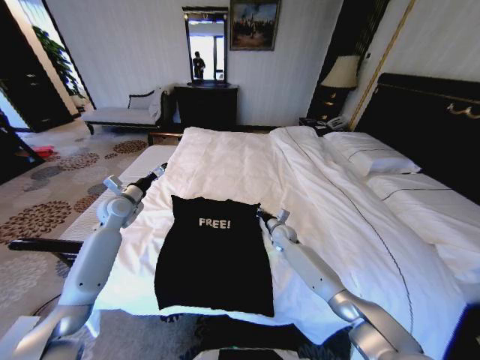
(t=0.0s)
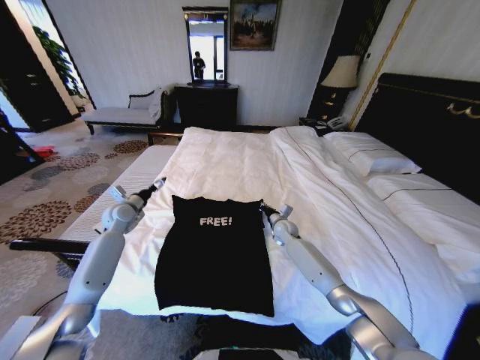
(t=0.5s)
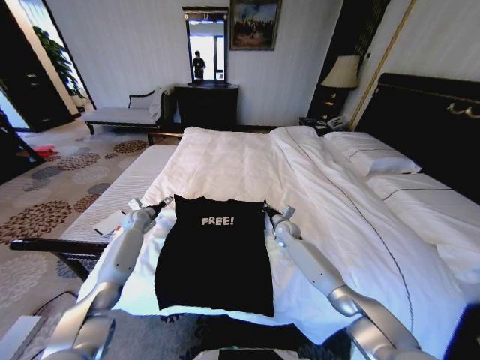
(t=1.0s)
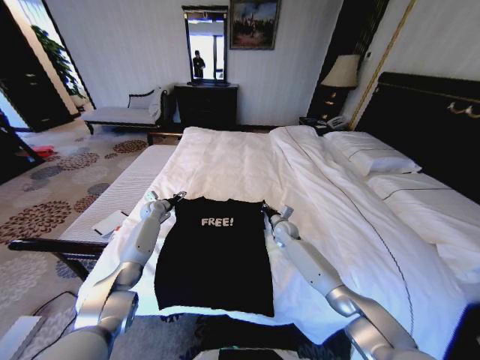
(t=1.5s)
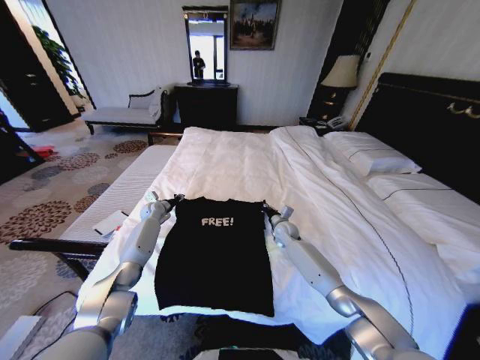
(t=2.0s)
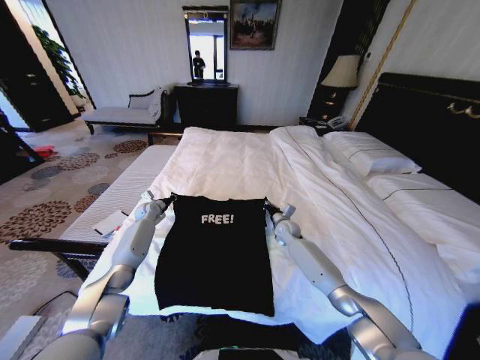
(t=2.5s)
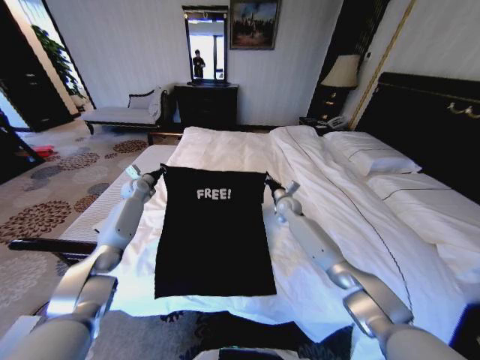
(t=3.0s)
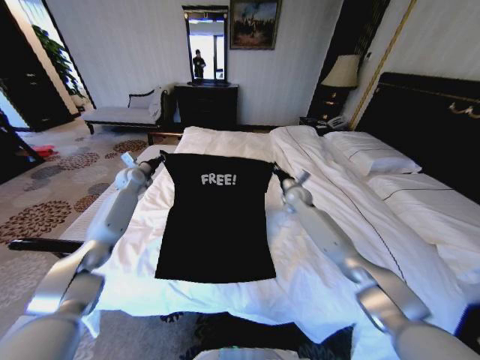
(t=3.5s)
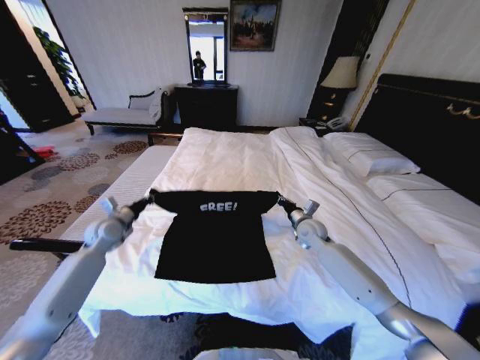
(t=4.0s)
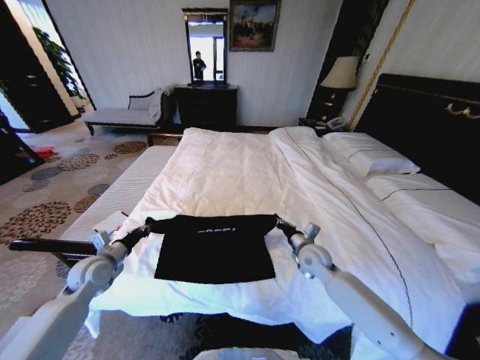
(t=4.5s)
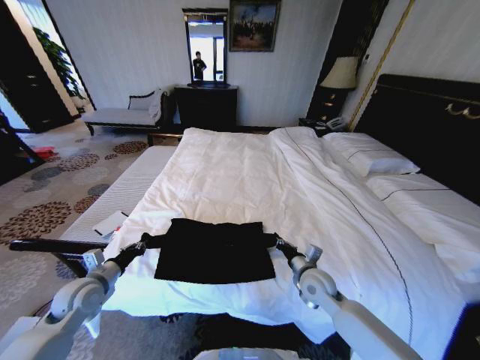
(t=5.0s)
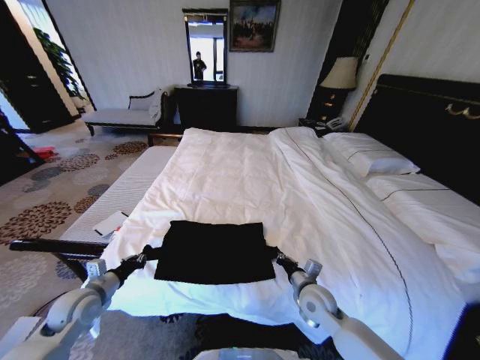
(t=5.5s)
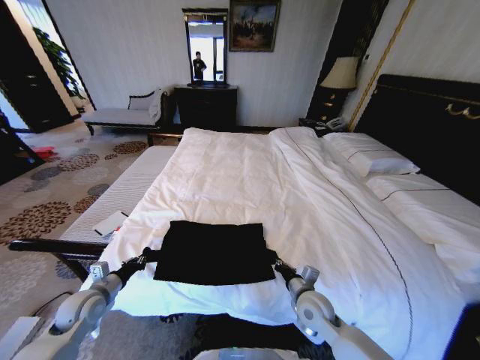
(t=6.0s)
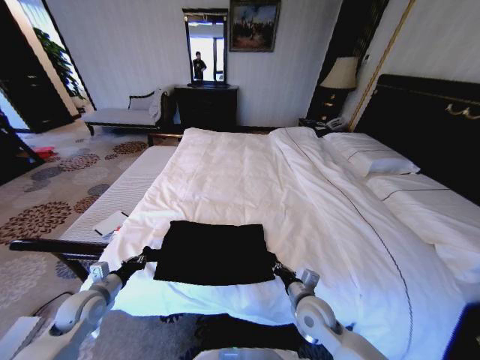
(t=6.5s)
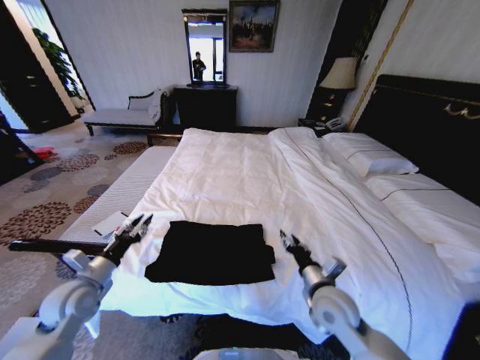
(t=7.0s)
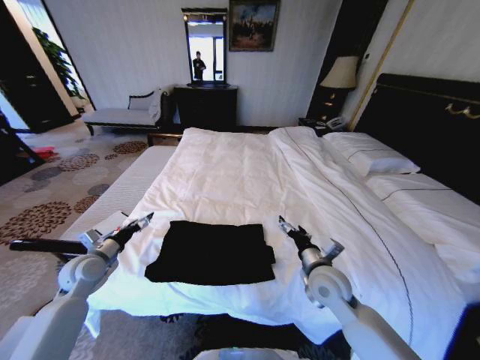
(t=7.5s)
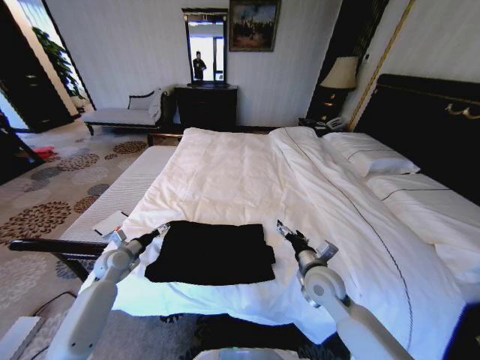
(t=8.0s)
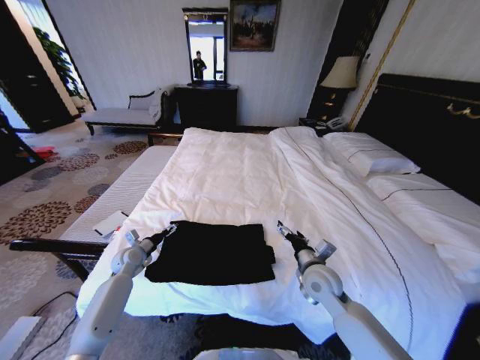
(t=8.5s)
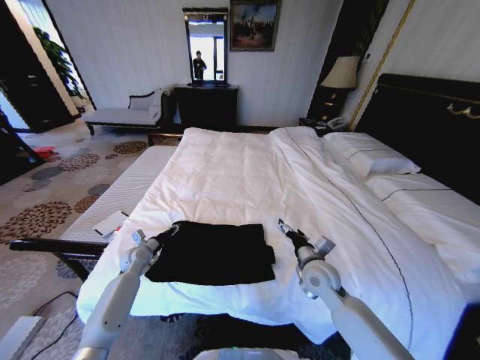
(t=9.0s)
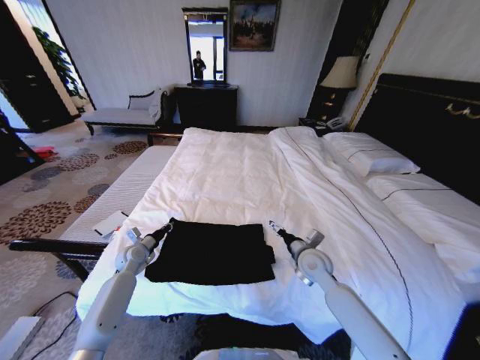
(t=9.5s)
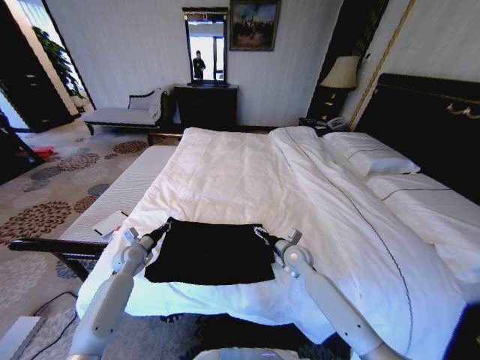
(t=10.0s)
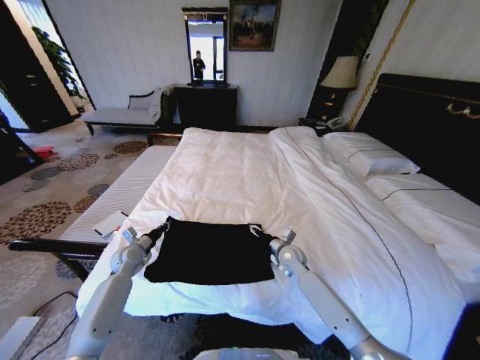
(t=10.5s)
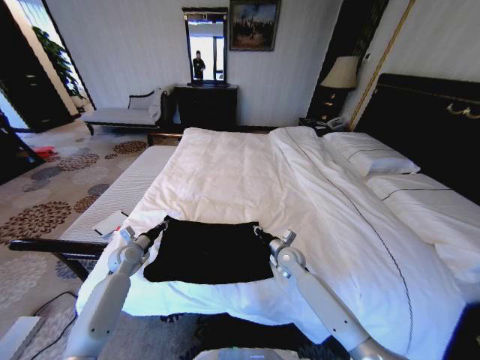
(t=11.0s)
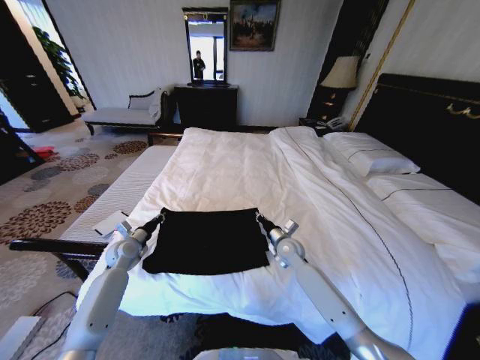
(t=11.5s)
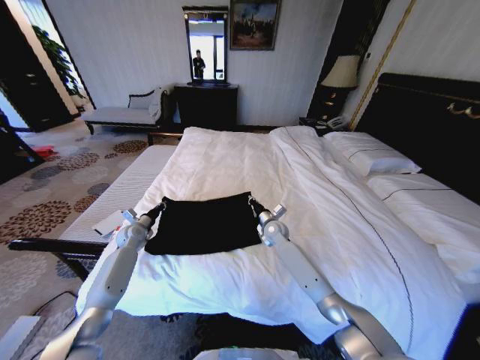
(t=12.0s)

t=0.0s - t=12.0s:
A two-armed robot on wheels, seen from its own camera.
Task of the whole recording: Fold the clothes on the bed.
t=0.0s - t=2.0s: The left gripper moves downward and forward, about 20 cm, and closes.
t=2.0s - t=4.0s: The right gripper moves upward, backward and to the right, approximately 10 cm; the left gripper shifts approximately 20 cm backward, upward and to the left, and closes its fingers.
t=4.0s - t=6.0s: The right gripper travels backward by roughly 20 cm. The left gripper is displaced backward and downward by about 20 cm.
t=6.0s - t=8.0s: The right gripper travels upward by some 10 cm, and opens; the left gripper moves forward, roughly 15 cm, and opens.
t=8.0s - t=10.0s: The left gripper closes its fingers, while the right gripper shifts about 15 cm forward and downward.
t=10.0s - t=12.0s: The right gripper shifts some 10 cm forward and to the left, and closes its fingers. Meanwhile the left gripper shifts some 10 cm forward.

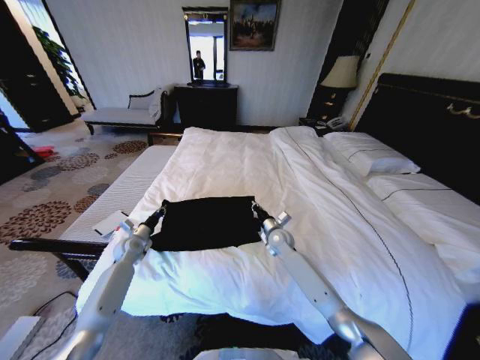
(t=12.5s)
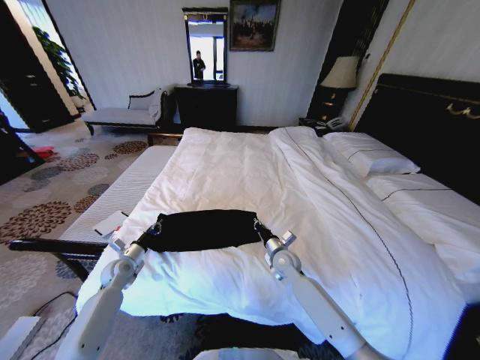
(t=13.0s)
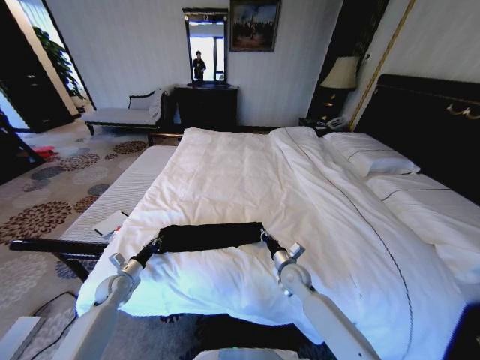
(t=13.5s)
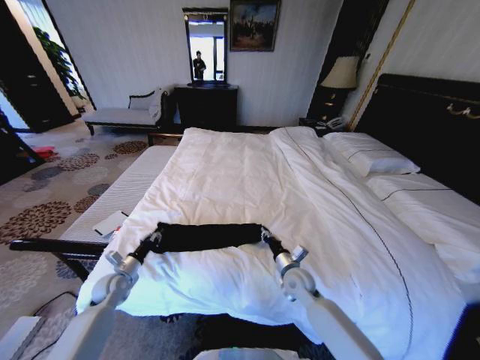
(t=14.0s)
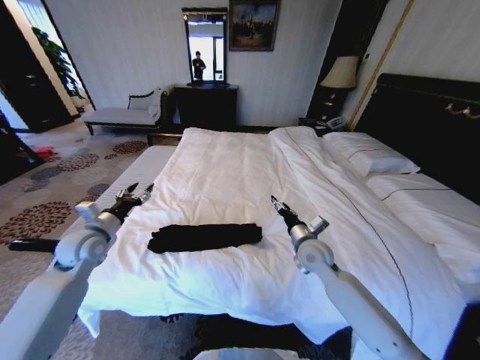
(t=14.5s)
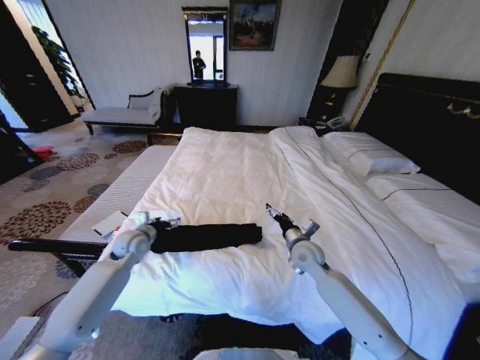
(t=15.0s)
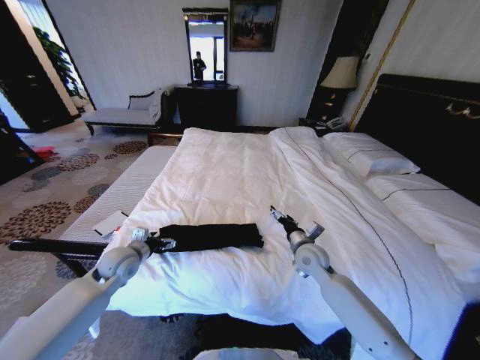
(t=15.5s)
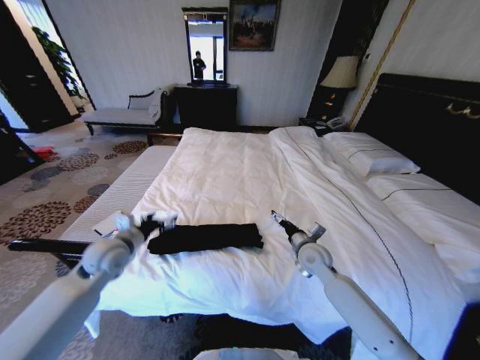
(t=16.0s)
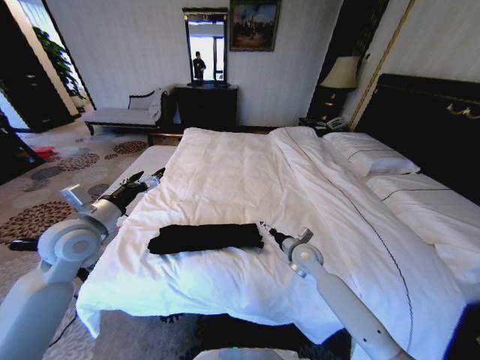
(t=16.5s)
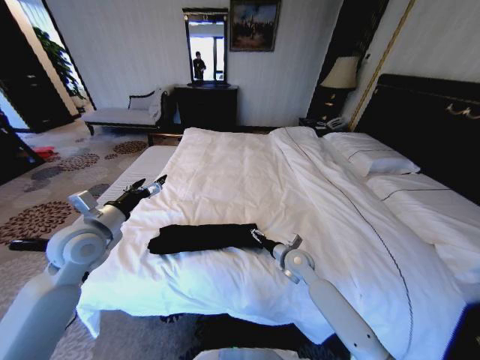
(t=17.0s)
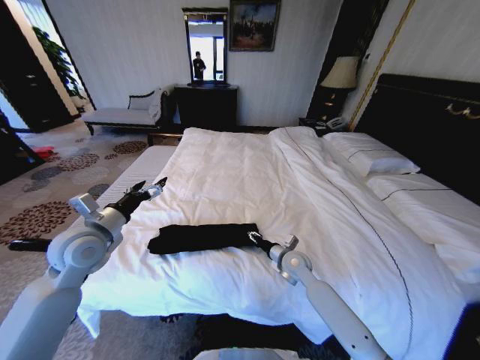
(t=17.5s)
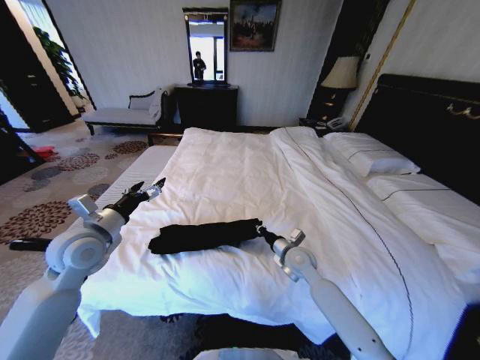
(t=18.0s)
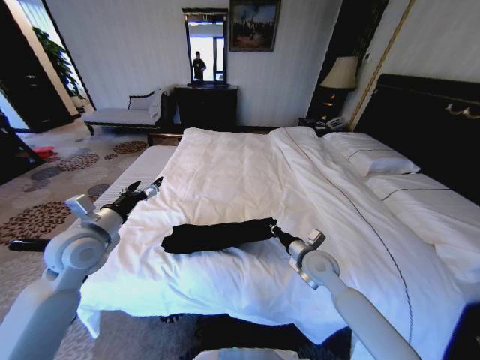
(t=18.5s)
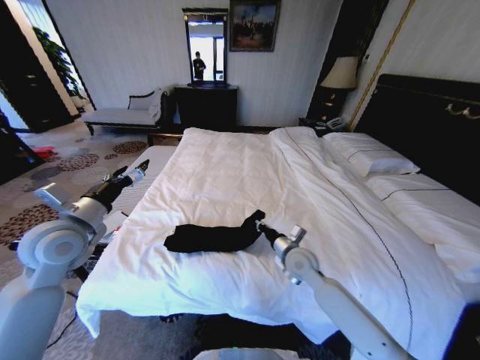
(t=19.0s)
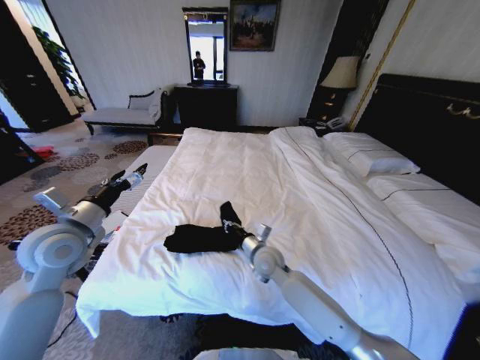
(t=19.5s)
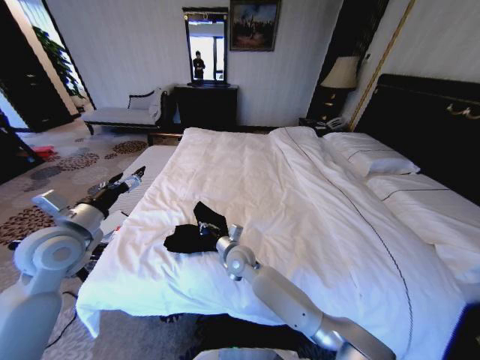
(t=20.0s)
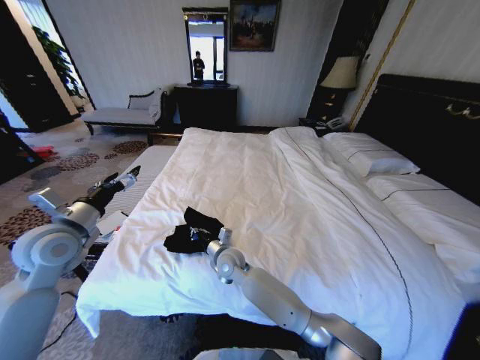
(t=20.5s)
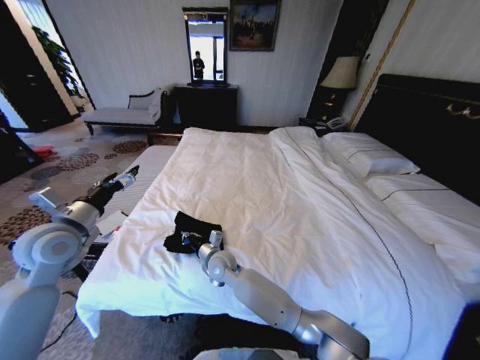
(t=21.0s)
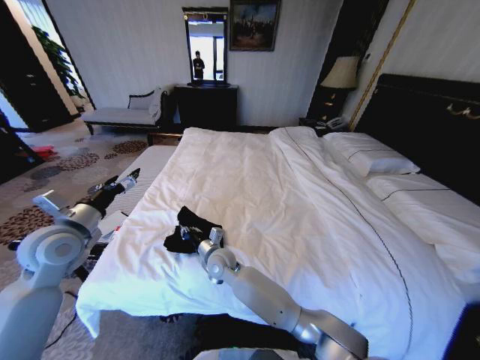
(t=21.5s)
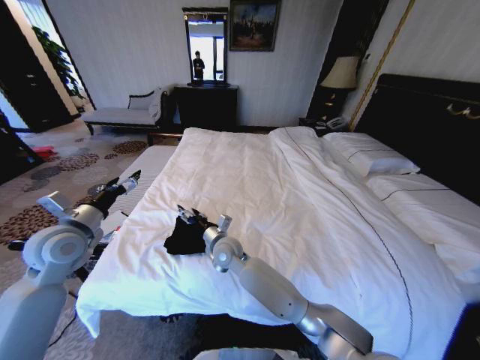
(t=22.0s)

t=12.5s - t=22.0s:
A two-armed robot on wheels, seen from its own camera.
Task of the whole recording: Fold the clothes on the bed.
t=12.5s - t=14.5s: The right gripper shifts some 15 cm backward and upward, and opens; the left gripper heads upward and backward, covering roughly 20 cm, and opens.
t=14.5s - t=16.5s: The right gripper heads downward, covering about 5 cm. Meanwhile the left gripper travels upward by roughly 10 cm.
t=16.5s - t=18.0s: The right gripper closes its fingers.
t=18.0s - t=20.0s: The right gripper travels to the left by some 20 cm.
t=20.0s - t=22.0s: The right gripper moves about 5 cm, and opens up.

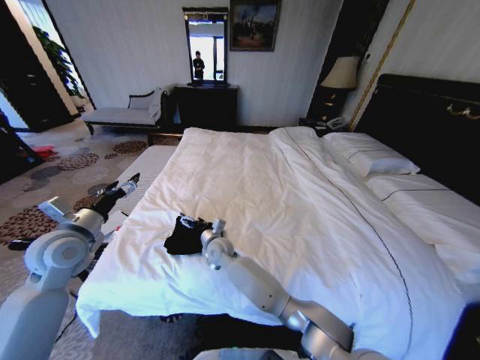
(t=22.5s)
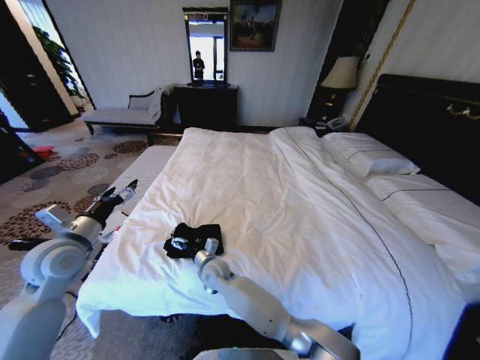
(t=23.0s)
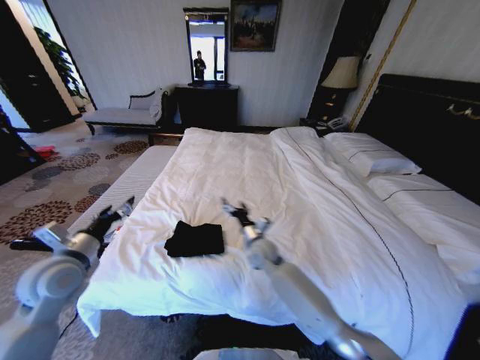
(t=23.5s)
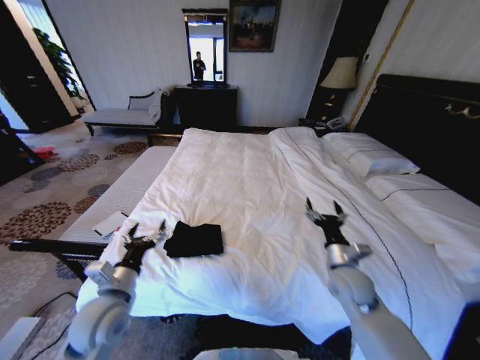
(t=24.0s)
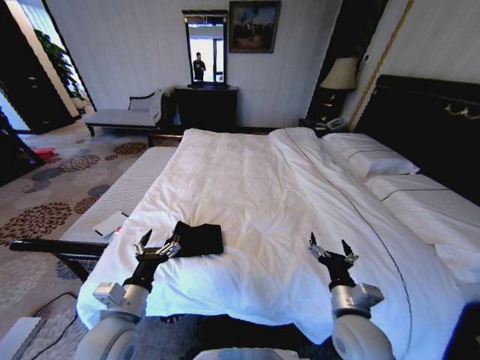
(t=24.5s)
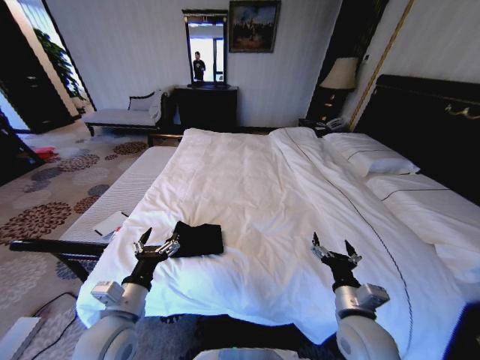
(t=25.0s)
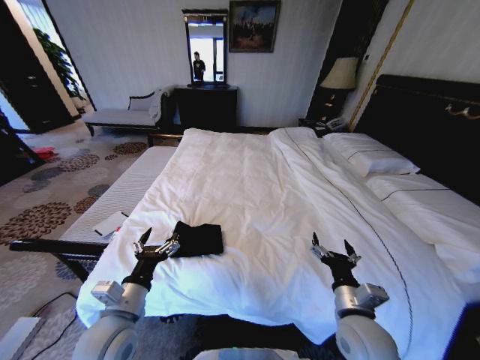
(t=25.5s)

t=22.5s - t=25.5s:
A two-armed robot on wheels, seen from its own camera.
Task of the whole recording: Fold the clothes on the bed.
t=22.5s - t=24.0s: The left gripper goes some 20 cm backward, to the right and downward; the right gripper shifts some 35 cm to the right.
t=24.0s - t=25.5s: The right gripper heads backward, covering roughly 10 cm.
